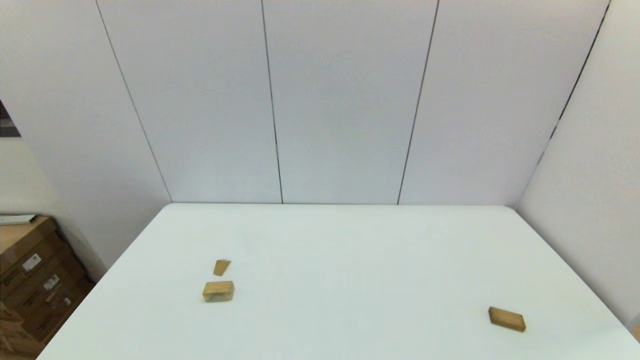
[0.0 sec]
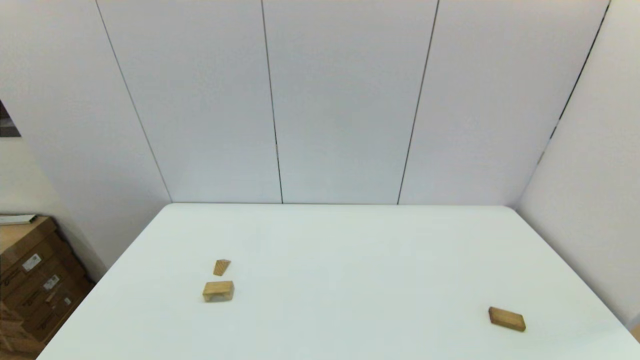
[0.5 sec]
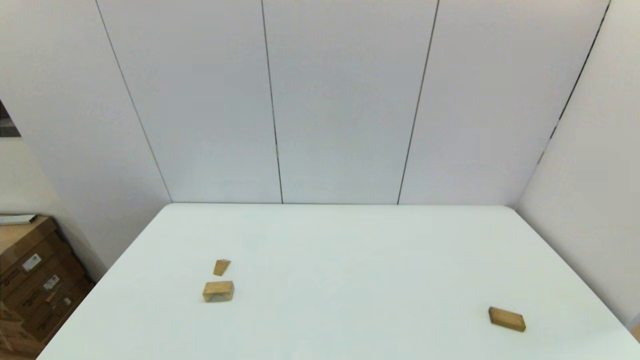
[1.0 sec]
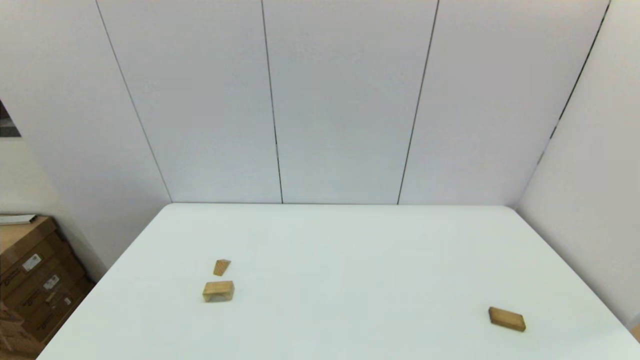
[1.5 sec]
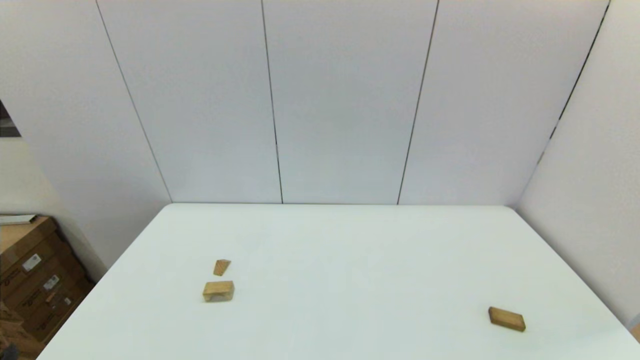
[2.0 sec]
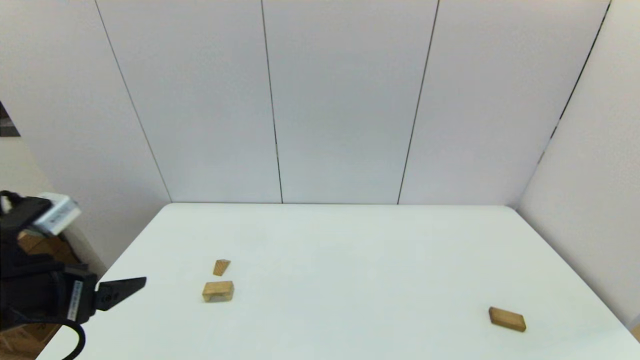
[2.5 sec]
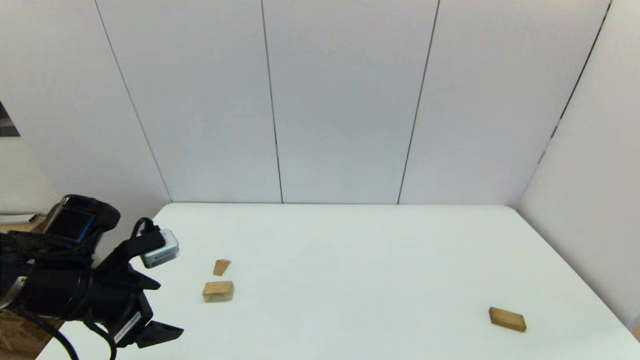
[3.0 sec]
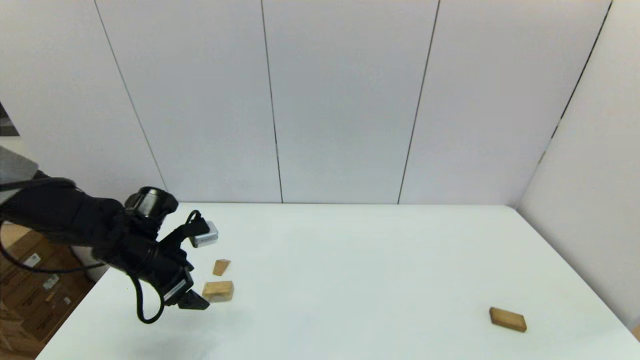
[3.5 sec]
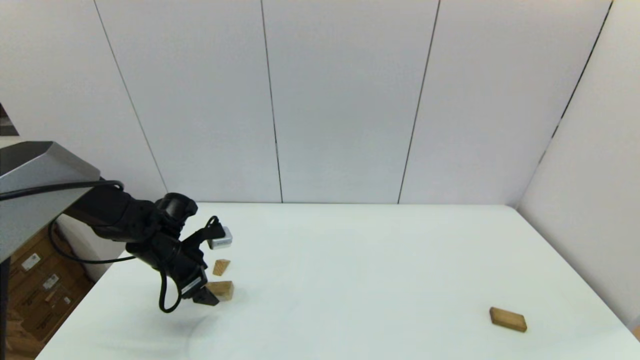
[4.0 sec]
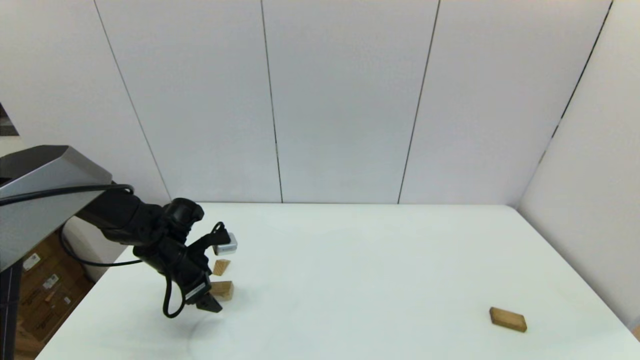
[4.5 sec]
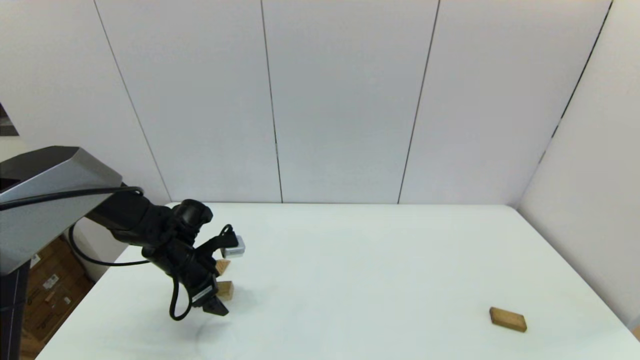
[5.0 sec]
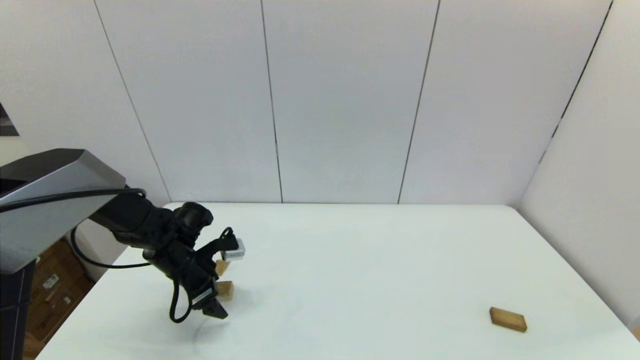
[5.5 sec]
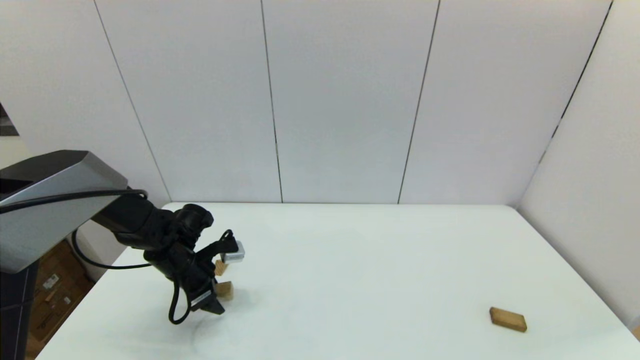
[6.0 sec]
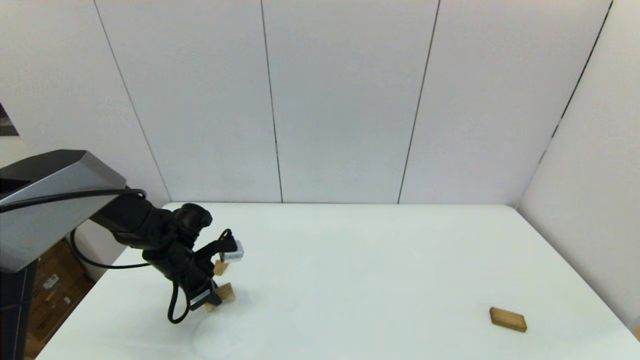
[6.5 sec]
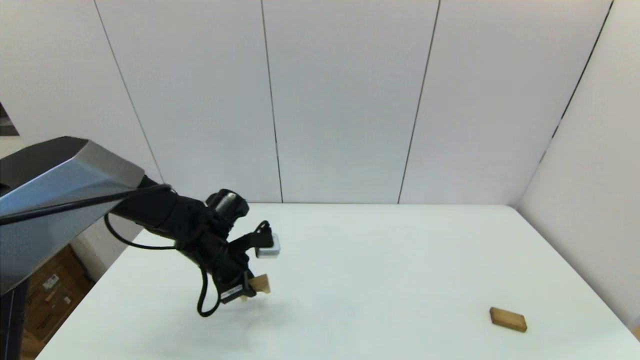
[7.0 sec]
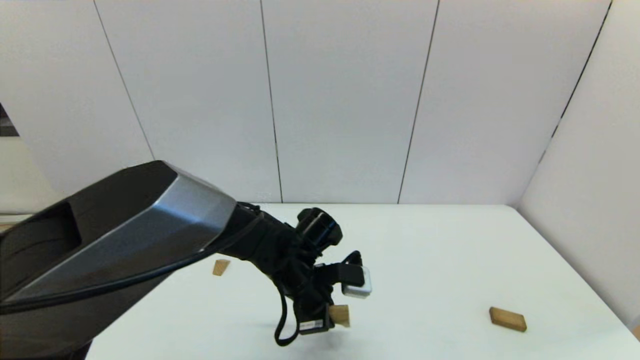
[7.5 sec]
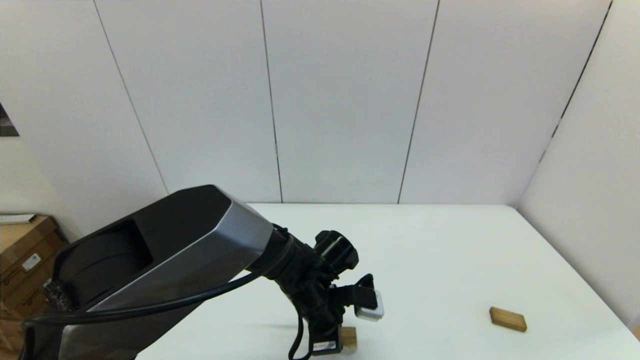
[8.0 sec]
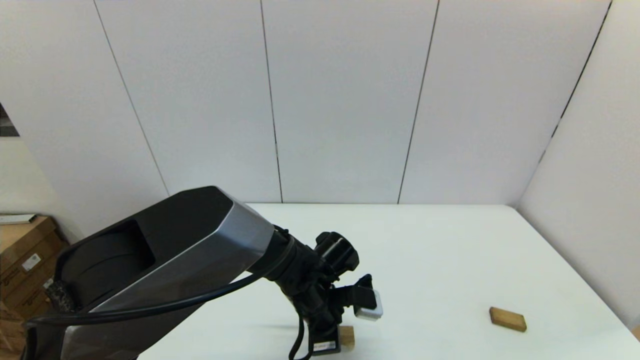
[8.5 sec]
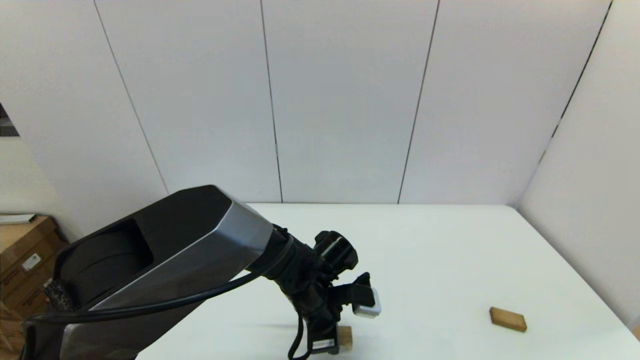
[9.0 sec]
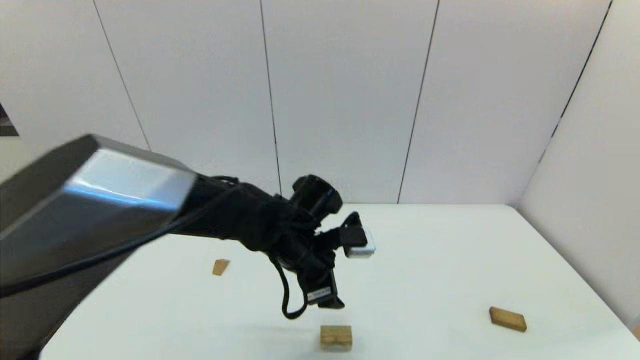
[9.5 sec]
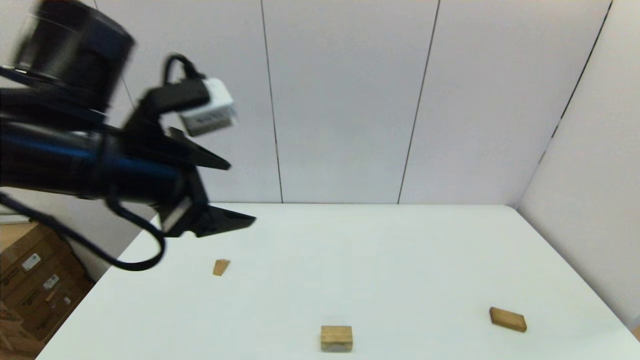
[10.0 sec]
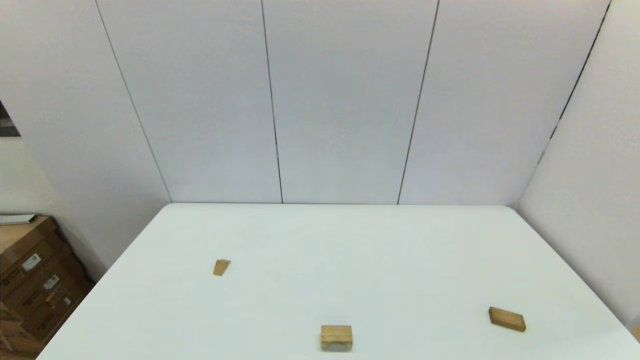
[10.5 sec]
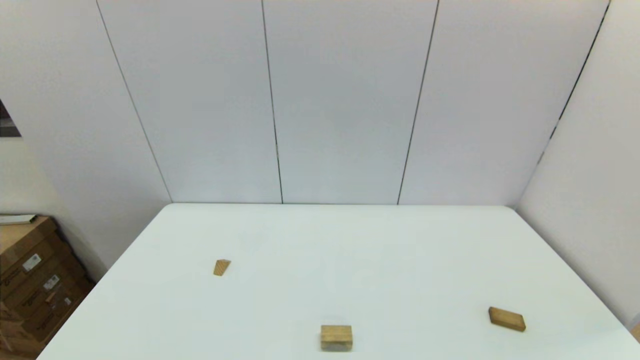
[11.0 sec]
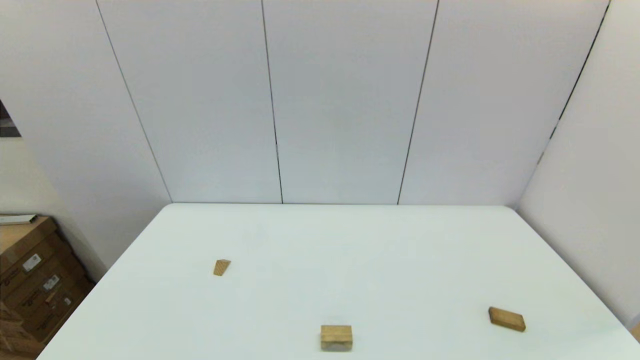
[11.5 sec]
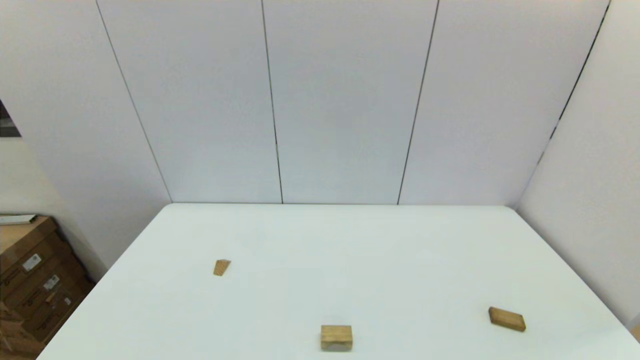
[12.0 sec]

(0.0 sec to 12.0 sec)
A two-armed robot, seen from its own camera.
Task of the whole recording: place the arched building blocks in the center of the table, set up the rectangular building blocks, and then set up the triangular building blocks.
Step, 2.0 sec - 6.0 sec: Grasp the arch-shaped block with the left gripper.
Step, 6.5 sec - 8.5 sec: Place the arch-shaped block in the center of view with the left gripper.
2.0 sec - 4.0 sec: The left gripper heads forward, covering approximately 35 cm.
4.0 sec - 6.0 sec: The left gripper closes.
6.0 sec - 8.0 sec: The left gripper heads to the right, covering some 25 cm, and closes.
8.0 sec - 10.0 sec: The left gripper travels upward and to the left by approximately 35 cm, and opens its fingers.
10.0 sec - 12.0 sec: The left gripper moves backward, downward and to the left, about 35 cm.

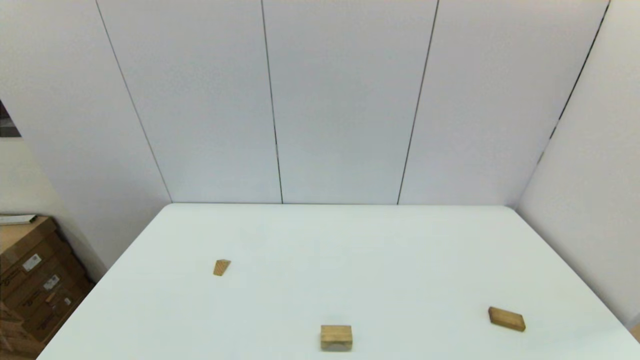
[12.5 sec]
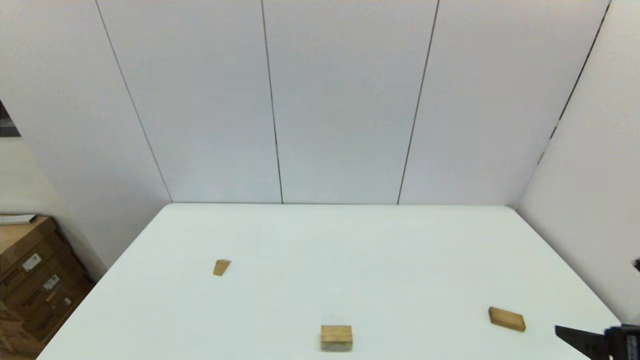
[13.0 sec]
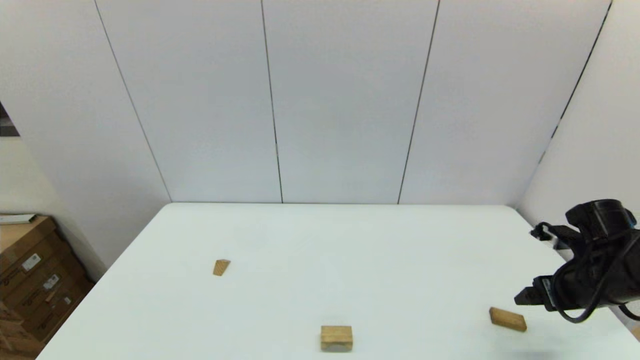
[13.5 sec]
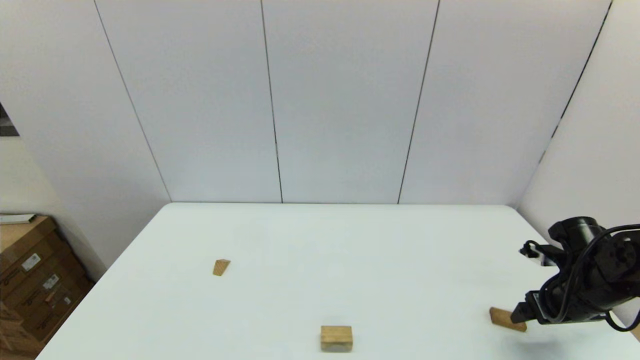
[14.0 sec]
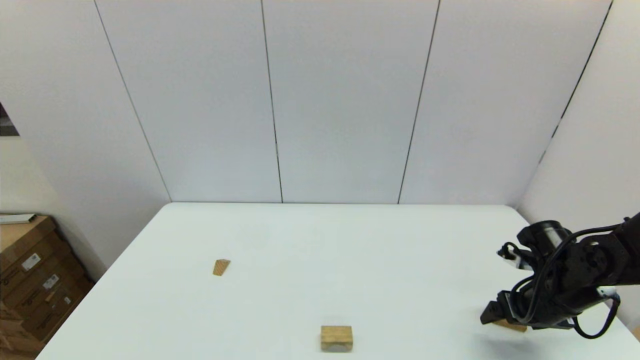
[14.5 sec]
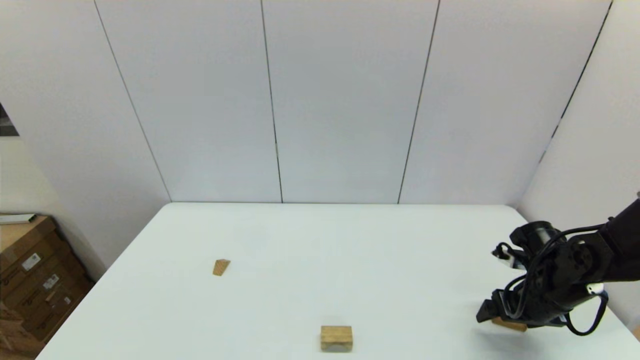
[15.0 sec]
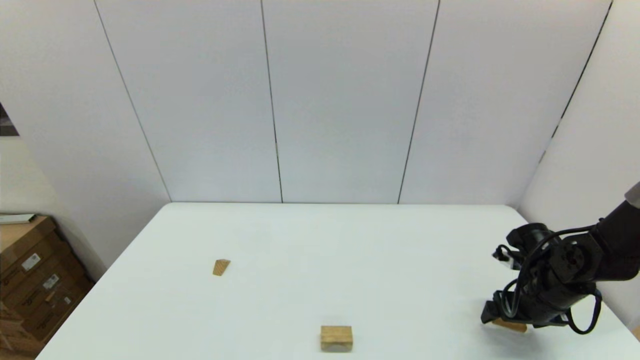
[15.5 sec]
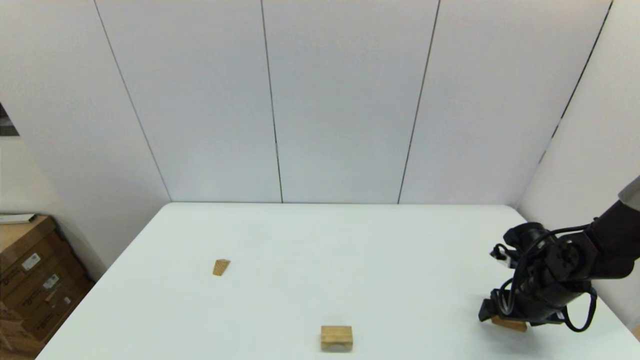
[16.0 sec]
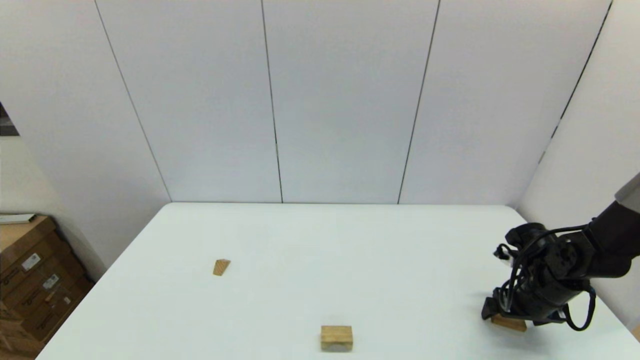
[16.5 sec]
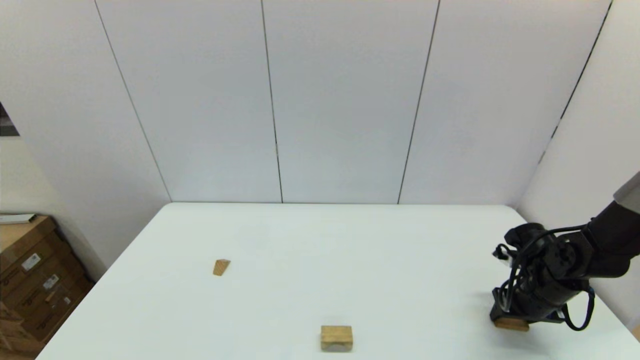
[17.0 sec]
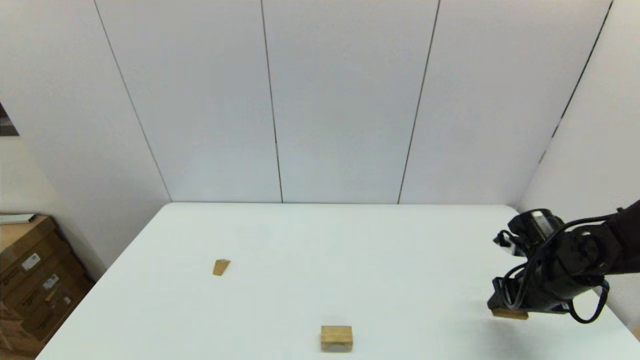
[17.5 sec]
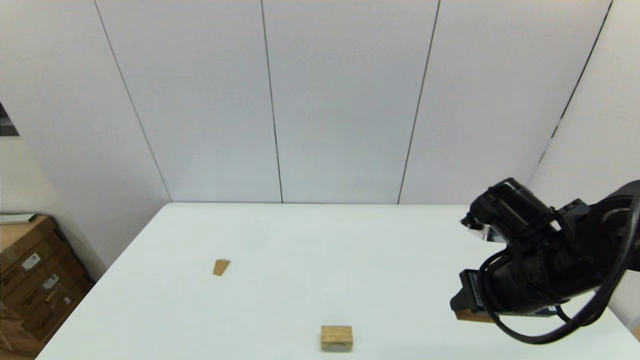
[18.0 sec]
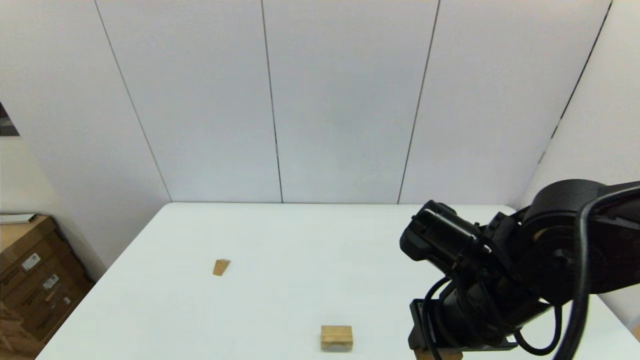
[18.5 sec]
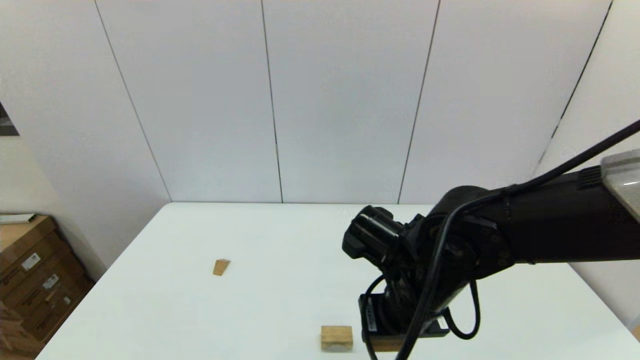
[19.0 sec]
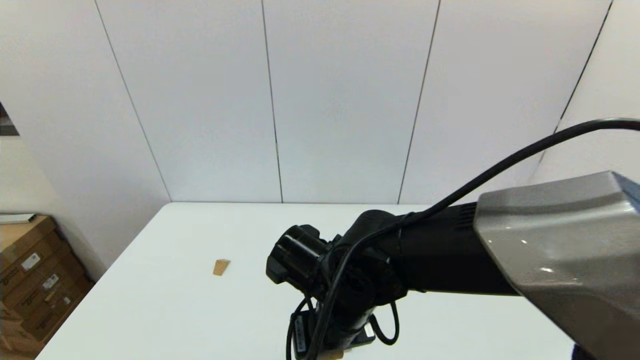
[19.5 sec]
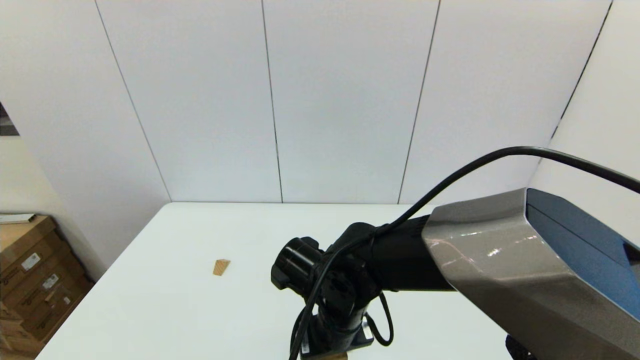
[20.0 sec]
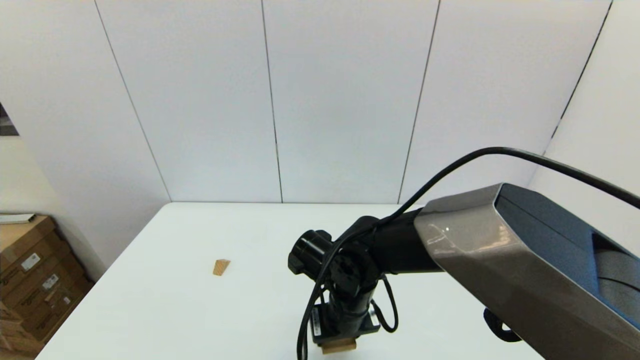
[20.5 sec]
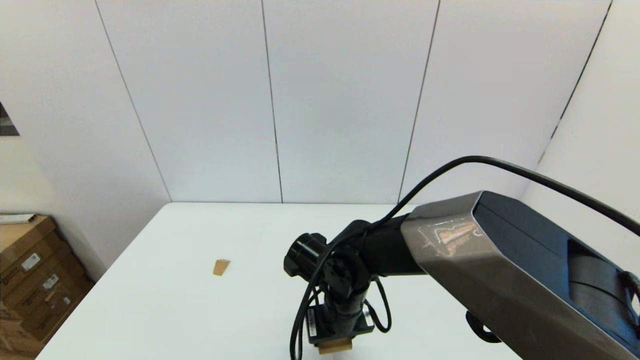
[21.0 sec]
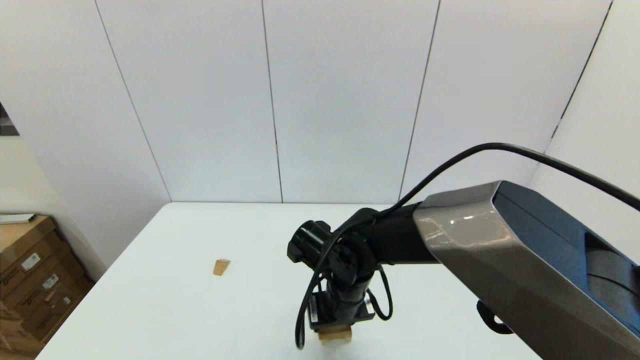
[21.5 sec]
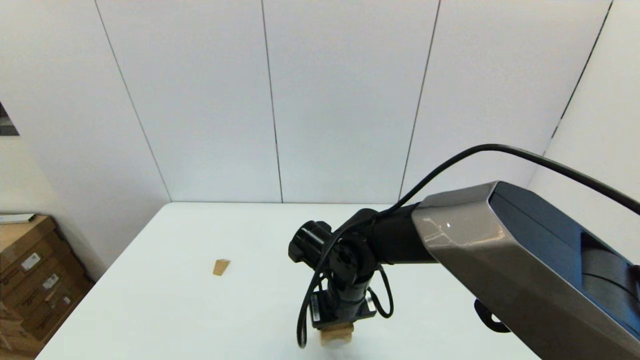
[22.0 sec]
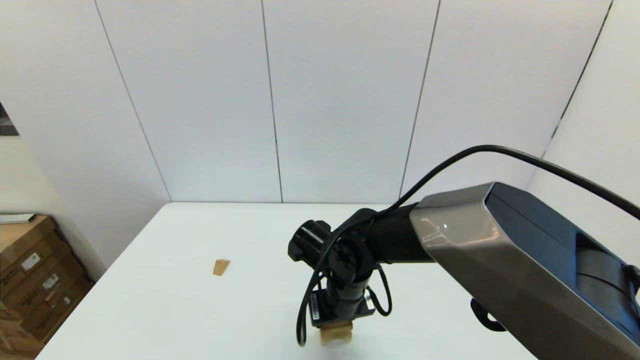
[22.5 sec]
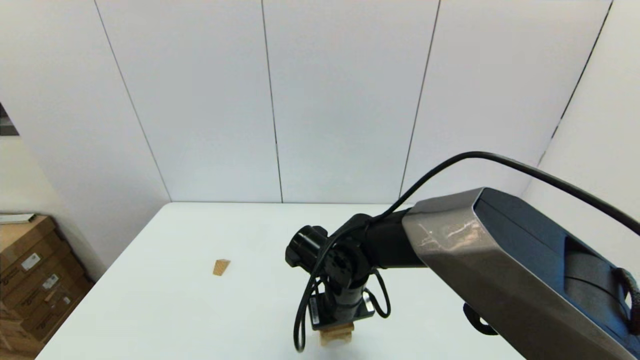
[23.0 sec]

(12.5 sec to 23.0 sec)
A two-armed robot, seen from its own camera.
Task of the whole recording: place the arched building blocks in the center of the table, set up the rectangular building blocks, and then set up the triangular building blocks.
Step, 12.5 sec - 16.5 sec: Grasp the box-shaped block with the right gripper.
12.5 sec - 14.5 sec: The right gripper travels forward by approximately 30 cm.
14.5 sec - 16.5 sec: There are only small adjustments of the grippers.
16.5 sec - 19.0 sec: The right gripper moves to the left and upward, some 30 cm, and closes its fingers.
19.0 sec - 21.0 sec: The right gripper is displaced downward and to the left by approximately 10 cm.
21.0 sec - 23.0 sec: The grippers move only a little.
